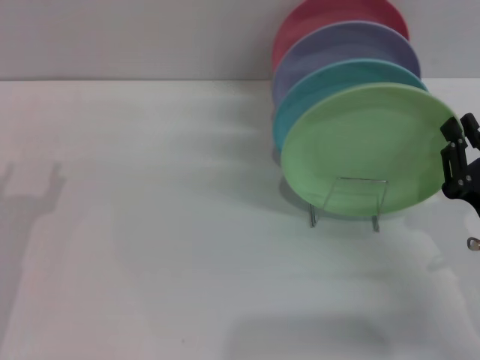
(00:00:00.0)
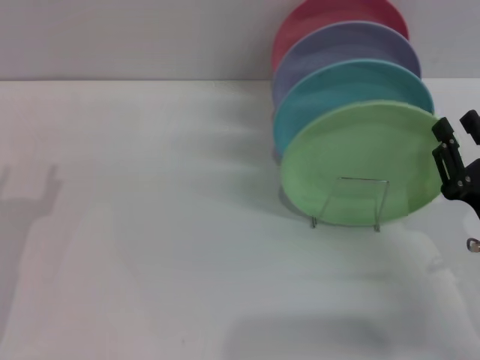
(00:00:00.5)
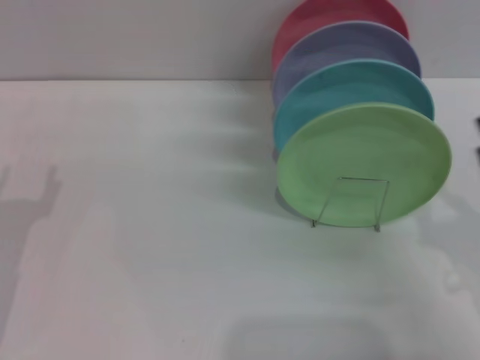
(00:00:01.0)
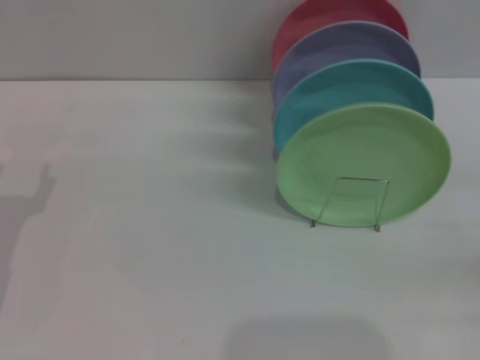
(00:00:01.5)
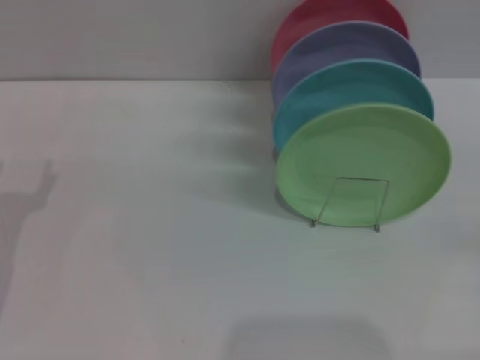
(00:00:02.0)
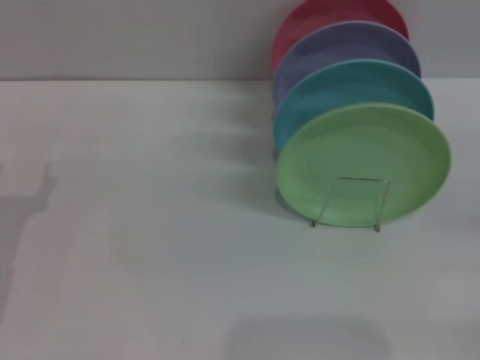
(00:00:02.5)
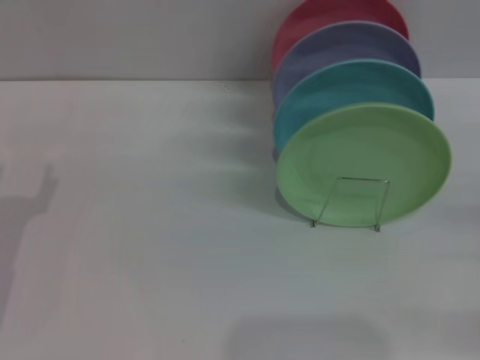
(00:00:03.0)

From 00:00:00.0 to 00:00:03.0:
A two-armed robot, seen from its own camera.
Task of the whole recording: Grip the plate with one hand, pass it to the other, then set it on the shelf.
From 00:00:00.0 to 00:00:01.5: The right gripper heads to the right and backward, covering approximately 15 cm, and opens.
